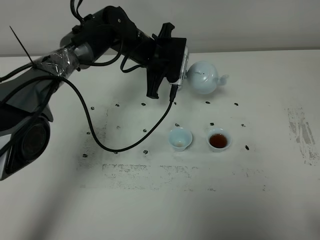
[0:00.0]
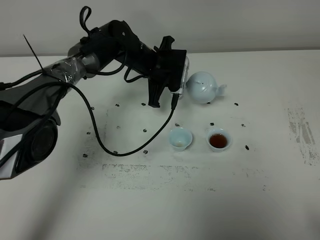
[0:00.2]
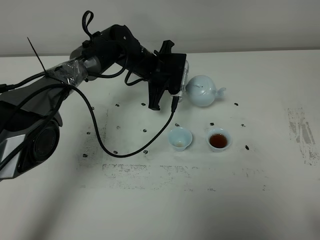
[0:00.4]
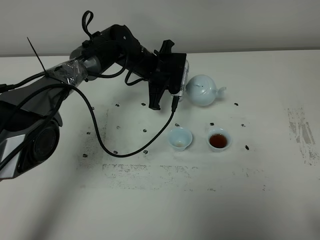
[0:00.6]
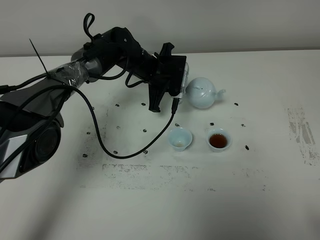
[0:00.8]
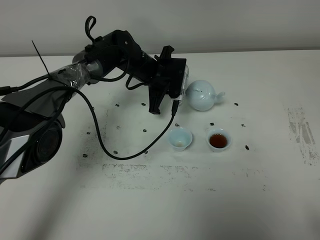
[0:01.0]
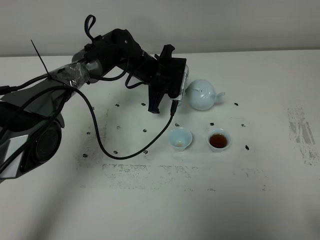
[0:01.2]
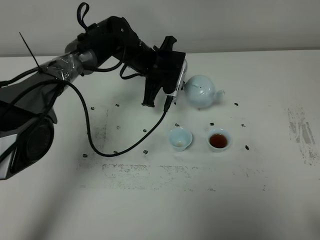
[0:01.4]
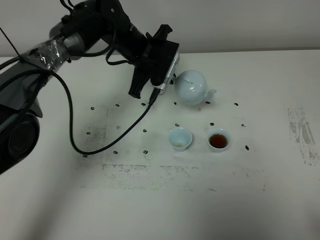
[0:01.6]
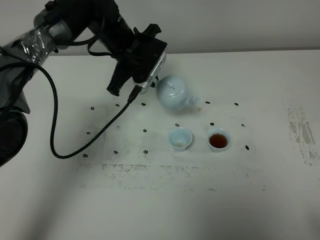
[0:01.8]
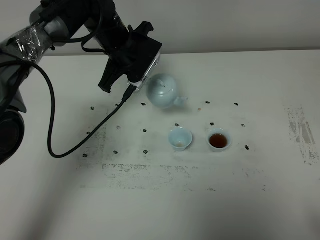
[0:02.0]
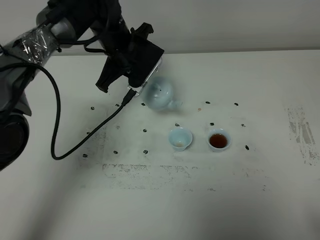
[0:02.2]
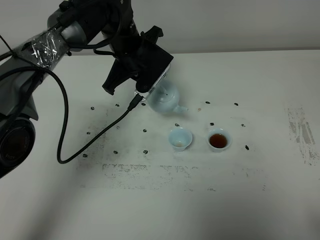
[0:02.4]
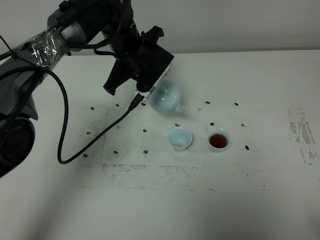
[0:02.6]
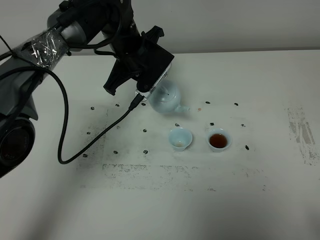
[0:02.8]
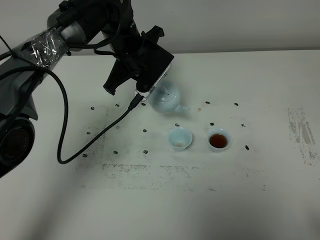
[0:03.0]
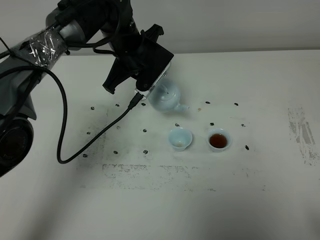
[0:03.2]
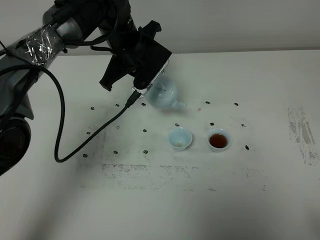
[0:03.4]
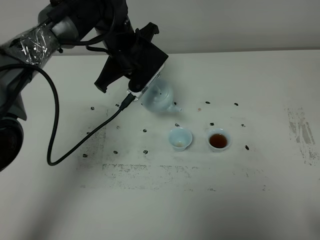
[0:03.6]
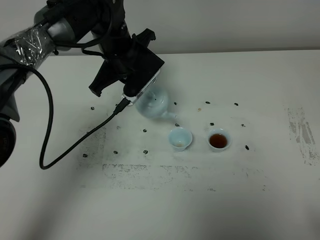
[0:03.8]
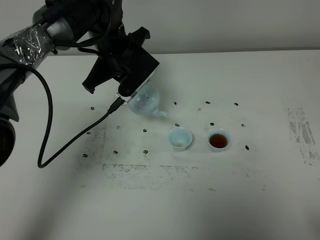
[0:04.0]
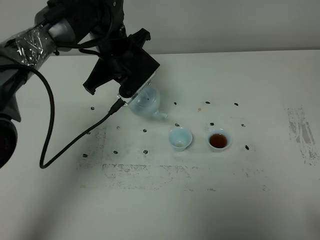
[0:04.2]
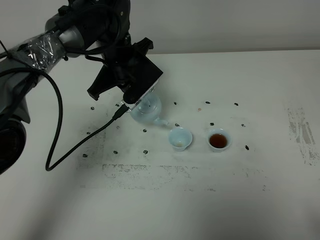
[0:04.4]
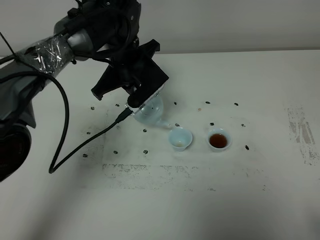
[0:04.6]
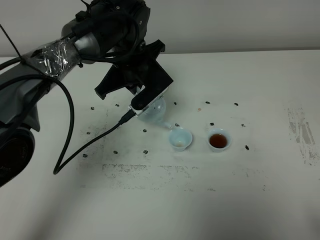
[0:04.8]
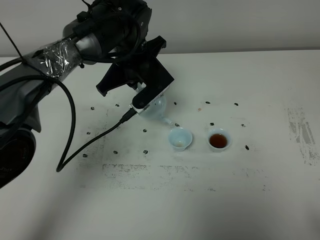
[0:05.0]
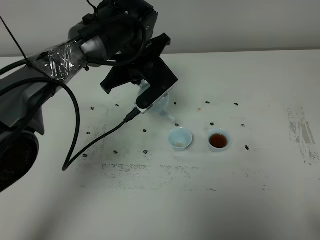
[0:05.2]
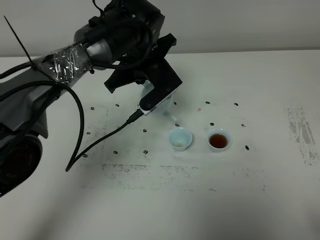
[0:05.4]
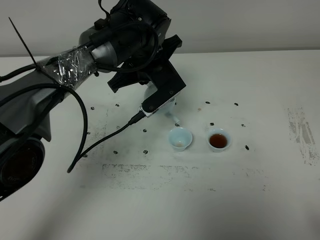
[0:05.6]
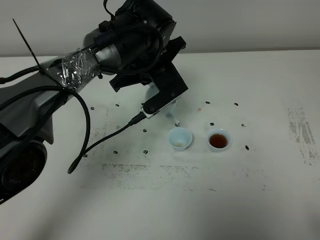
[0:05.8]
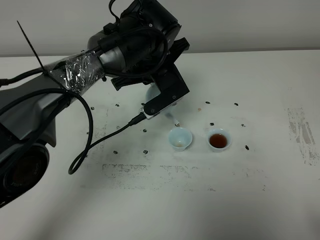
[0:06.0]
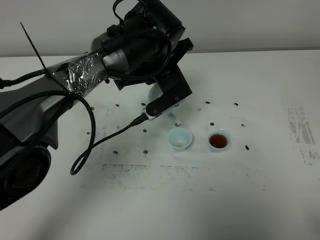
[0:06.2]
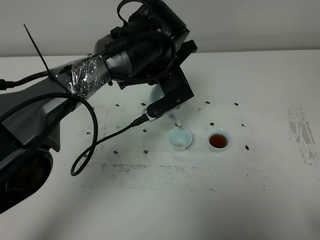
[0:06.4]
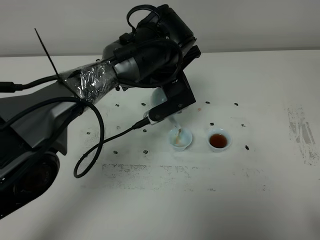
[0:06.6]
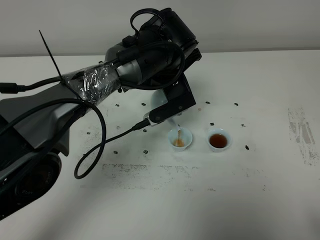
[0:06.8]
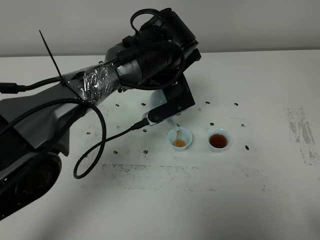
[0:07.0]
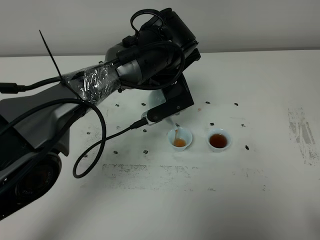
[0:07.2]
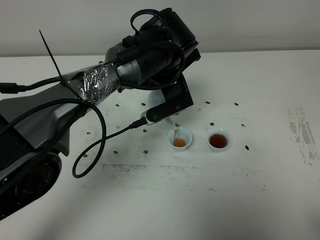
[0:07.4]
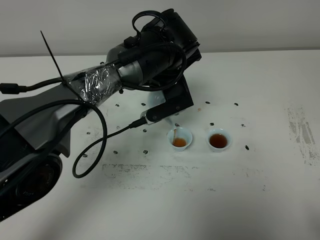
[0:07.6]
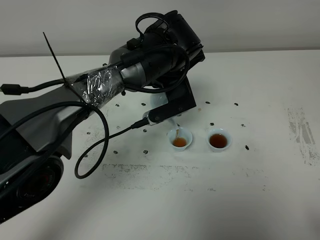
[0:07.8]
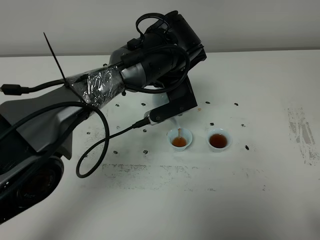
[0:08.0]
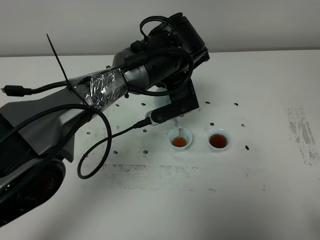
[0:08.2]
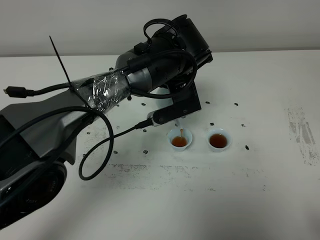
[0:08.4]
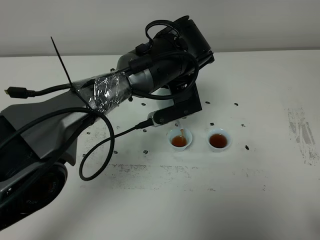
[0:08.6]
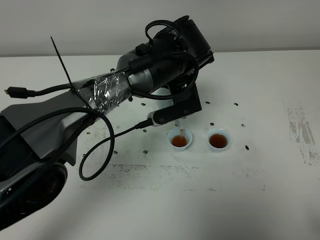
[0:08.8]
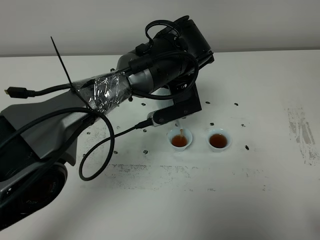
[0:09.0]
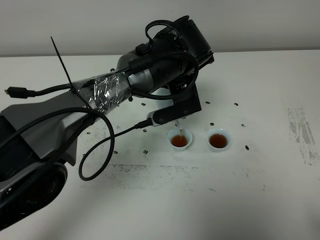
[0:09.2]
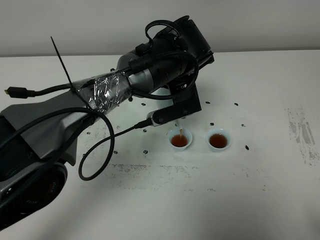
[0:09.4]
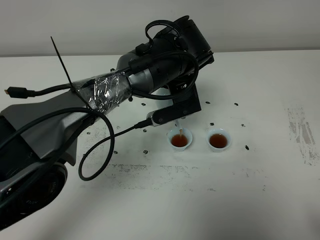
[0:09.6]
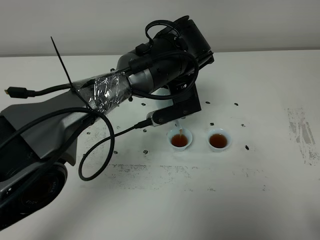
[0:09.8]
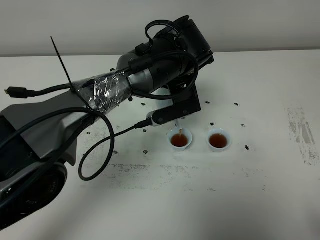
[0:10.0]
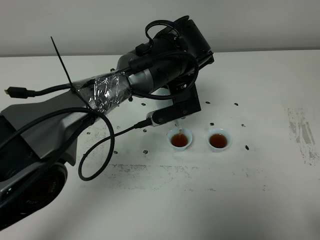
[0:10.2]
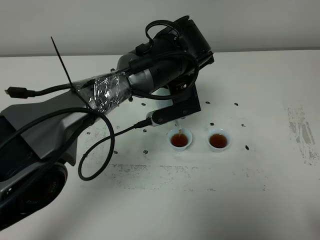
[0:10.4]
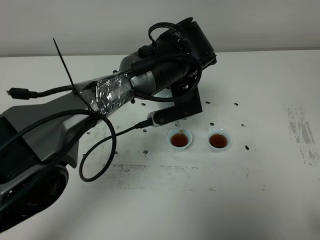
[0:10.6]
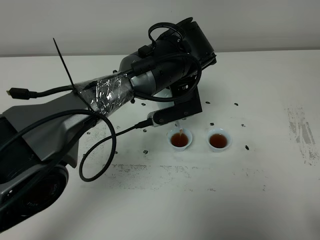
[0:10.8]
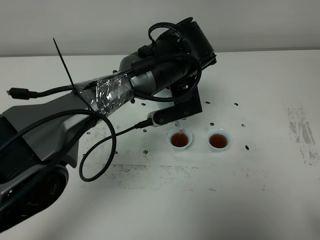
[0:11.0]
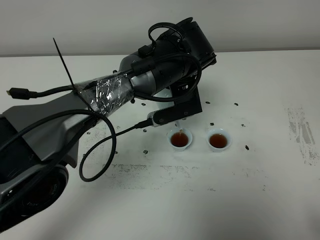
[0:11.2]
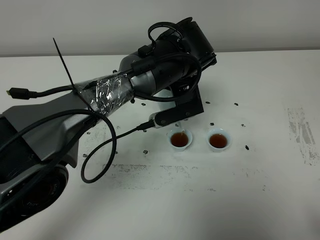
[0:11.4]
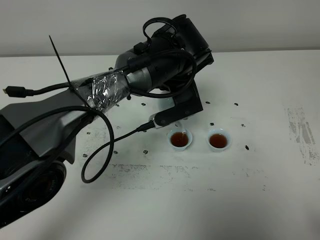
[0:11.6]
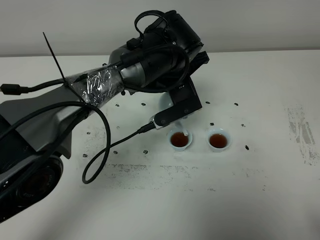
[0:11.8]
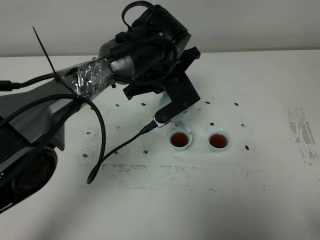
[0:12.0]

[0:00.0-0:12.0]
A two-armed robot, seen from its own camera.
Task of the whole recording: grasp the blue porcelain teapot and pour the tea into the two blue porcelain teacups one by one, put the blue porcelain teapot back in its original place.
0:00.0 to 0:01.6: The grippers stay close to where they were, moving slightly.
0:03.0 to 0:04.4: The grippers make only small movements.
0:04.4 to 0:06.0: The left gripper moves to the right, roughly 5 cm.
0:06.0 to 0:09.0: The grippers move only a little.
0:09.0 to 0:10.4: Both grippers stay put.

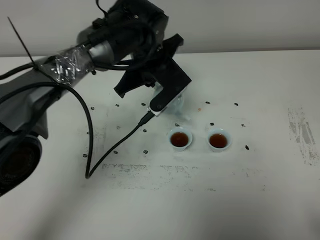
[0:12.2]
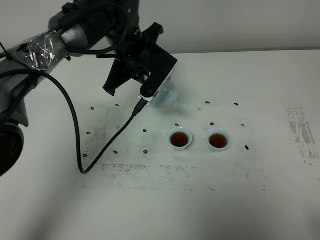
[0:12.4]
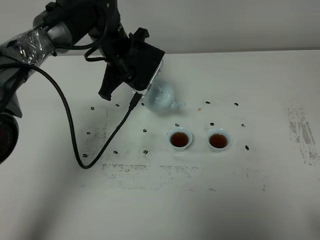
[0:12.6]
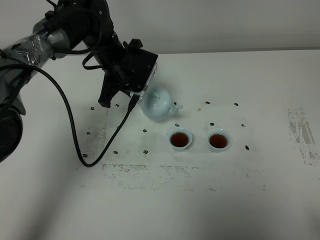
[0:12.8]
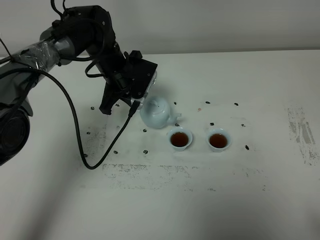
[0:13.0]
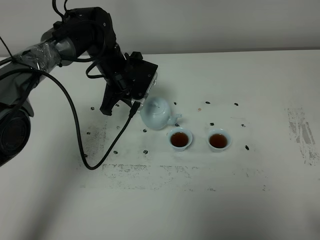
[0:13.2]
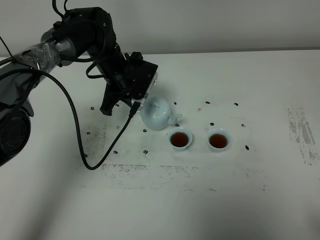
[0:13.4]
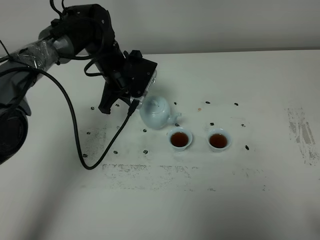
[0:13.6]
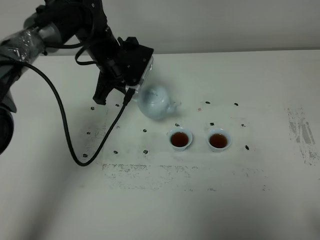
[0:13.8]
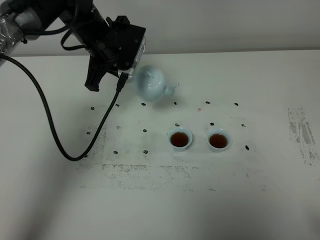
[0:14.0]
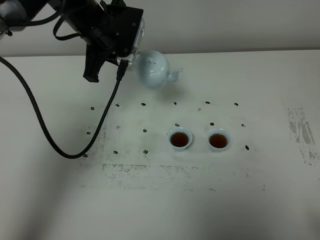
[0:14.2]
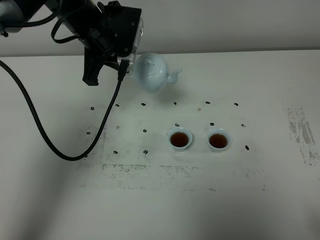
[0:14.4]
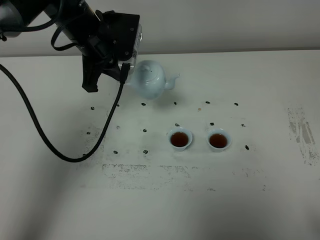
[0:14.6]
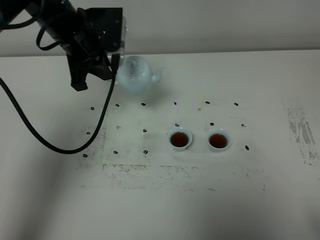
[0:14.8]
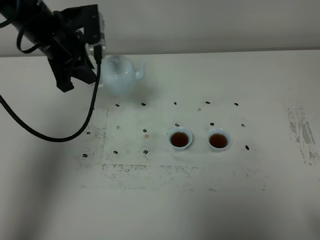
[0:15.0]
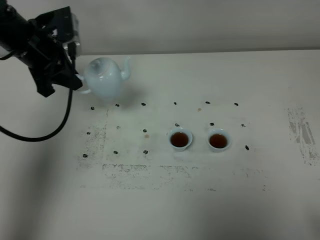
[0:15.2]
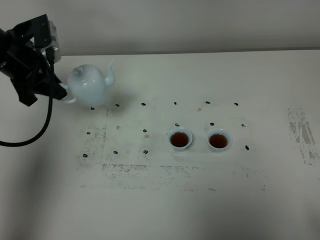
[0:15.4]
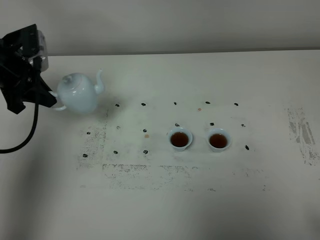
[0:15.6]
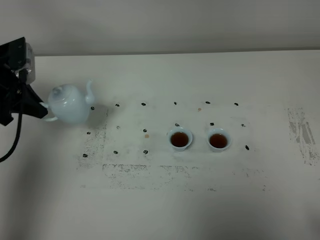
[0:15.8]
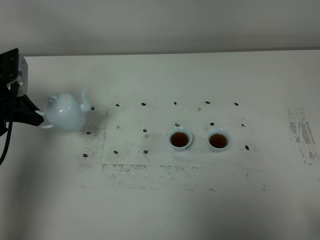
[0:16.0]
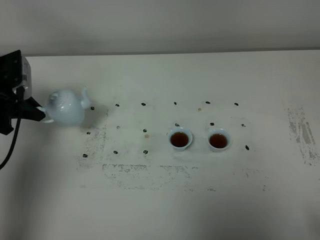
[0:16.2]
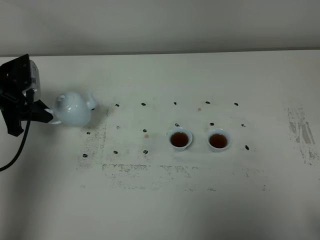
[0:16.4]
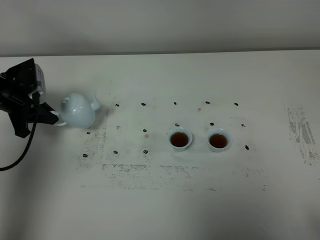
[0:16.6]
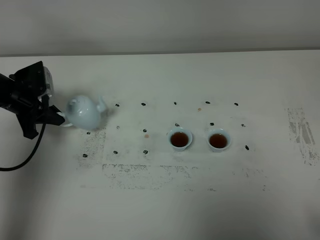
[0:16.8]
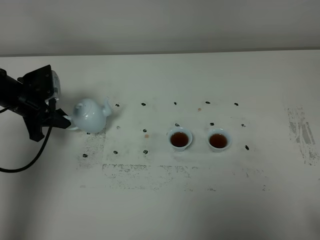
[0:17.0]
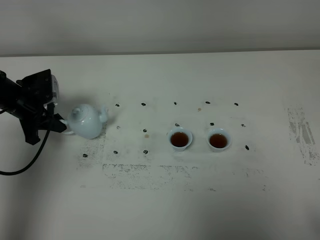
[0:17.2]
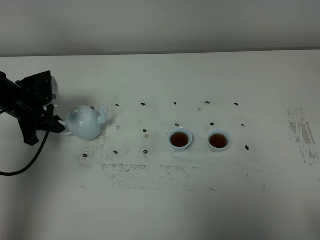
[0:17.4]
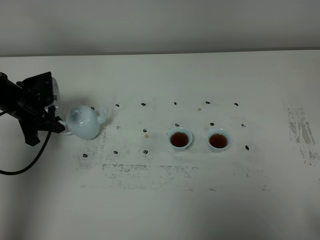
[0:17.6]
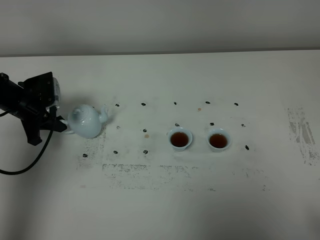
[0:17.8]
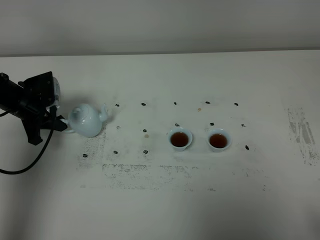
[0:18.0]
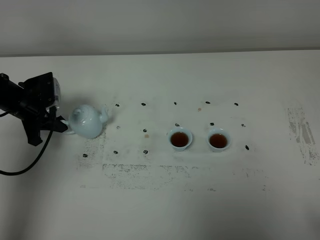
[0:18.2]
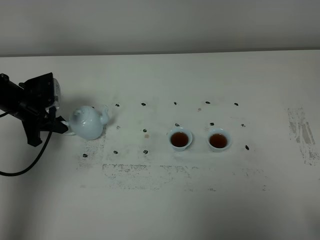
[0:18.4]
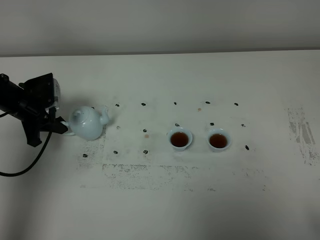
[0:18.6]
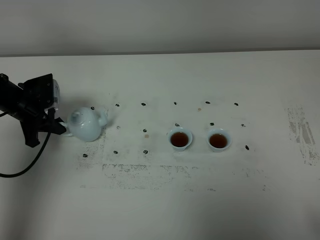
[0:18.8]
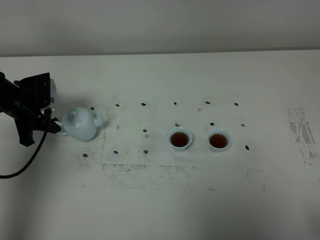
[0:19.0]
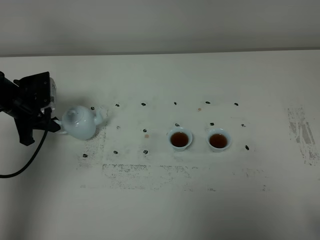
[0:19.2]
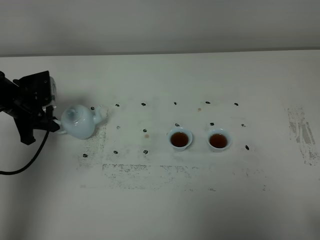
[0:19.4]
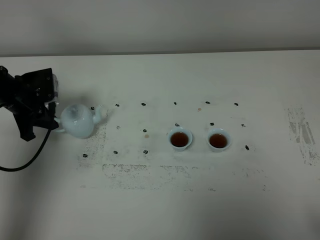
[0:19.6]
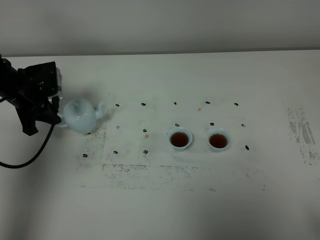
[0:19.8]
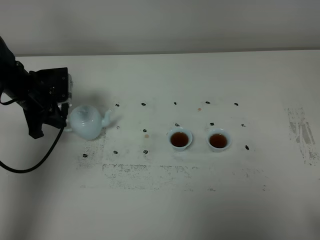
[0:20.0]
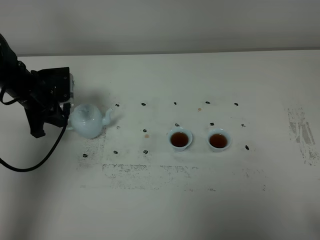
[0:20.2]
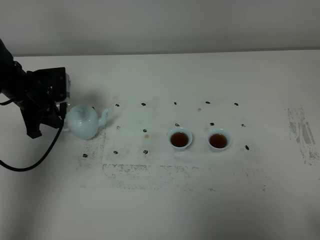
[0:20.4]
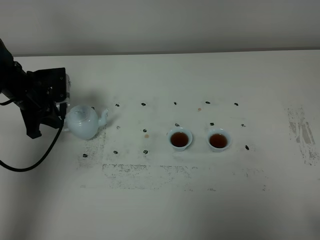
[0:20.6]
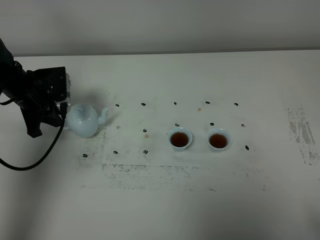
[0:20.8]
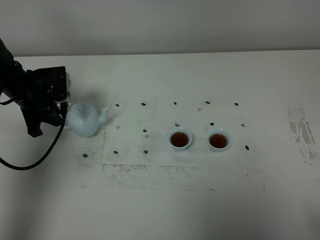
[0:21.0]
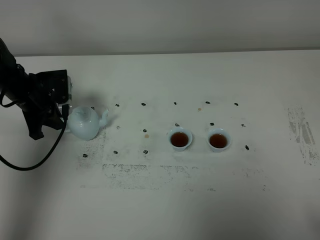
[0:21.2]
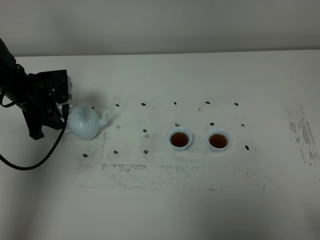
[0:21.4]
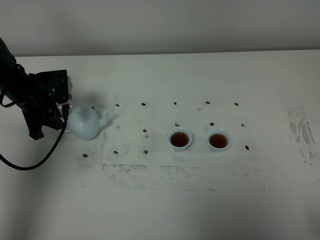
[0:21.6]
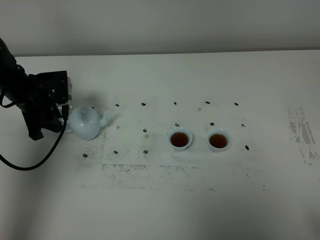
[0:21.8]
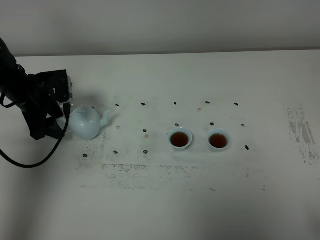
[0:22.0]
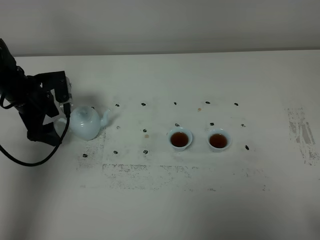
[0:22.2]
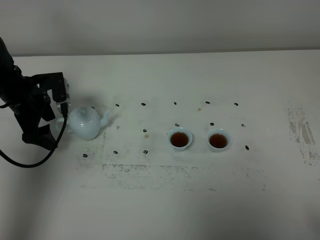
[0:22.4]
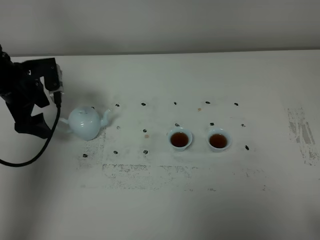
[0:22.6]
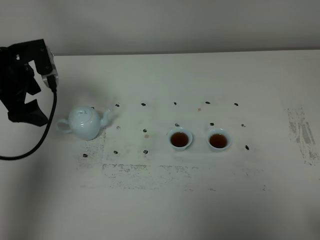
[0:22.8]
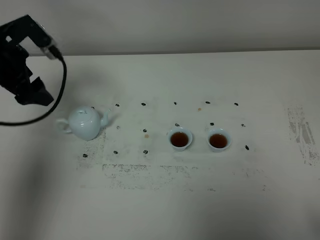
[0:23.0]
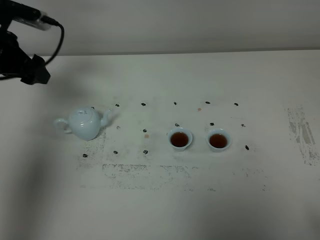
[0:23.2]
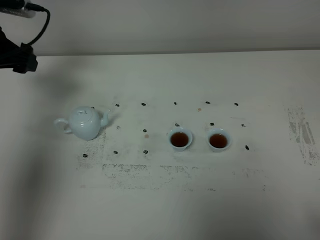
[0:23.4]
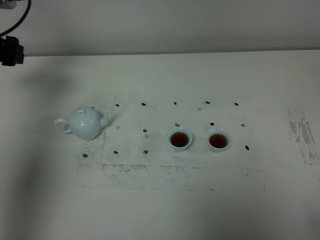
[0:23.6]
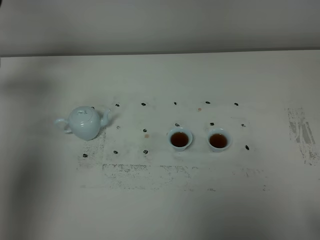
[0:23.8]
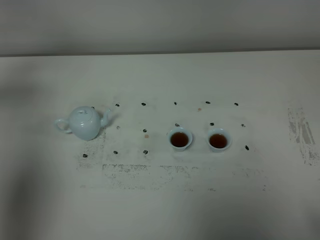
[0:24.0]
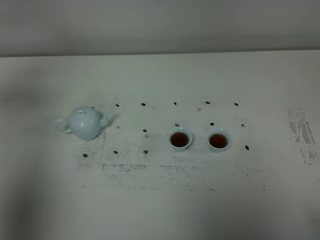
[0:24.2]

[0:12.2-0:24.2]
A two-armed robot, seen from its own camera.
Task of the whole recording: grasp the blue porcelain teapot and pour the tea into the two blue porcelain teacups one by one, put the blue porcelain teapot back in its original place.
0:12.2 to 0:13.8: The left gripper shifts about 10 cm to the left.
0:13.8 to 0:15.2: The left gripper shifts approximately 15 cm to the left.
0:15.2 to 0:16.6: The left gripper shifts approximately 15 cm downward and to the left.
0:16.6 to 0:21.2: The grippers move only a little.
0:21.2 to 0:22.6: The left gripper is displaced upward by roughly 5 cm, and opens.
0:22.6 to 0:24.2: The left gripper shifts about 20 cm upward, to the left and backward.
